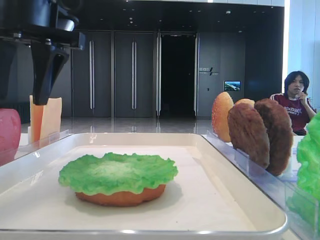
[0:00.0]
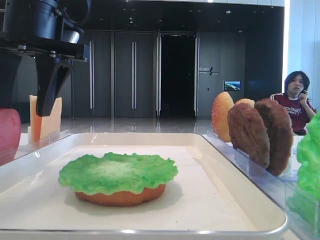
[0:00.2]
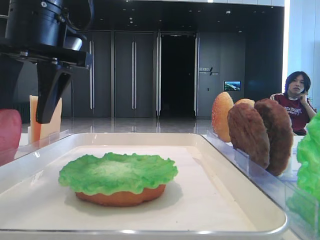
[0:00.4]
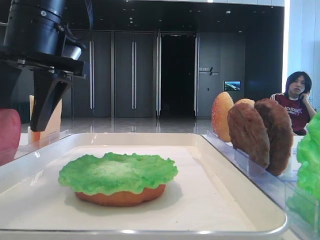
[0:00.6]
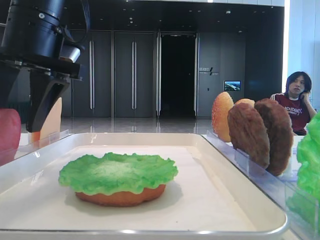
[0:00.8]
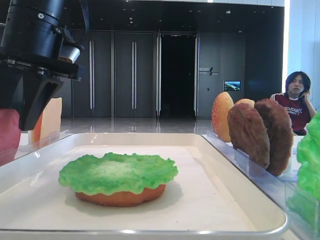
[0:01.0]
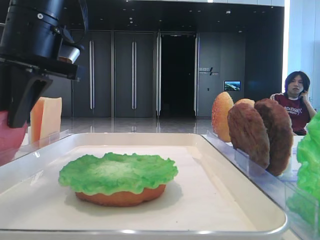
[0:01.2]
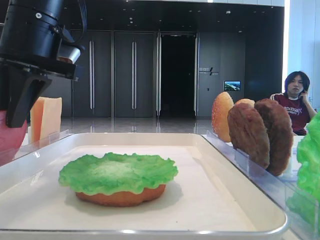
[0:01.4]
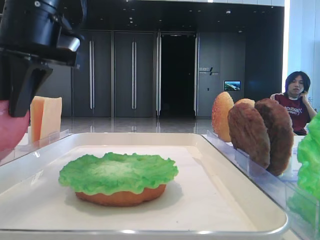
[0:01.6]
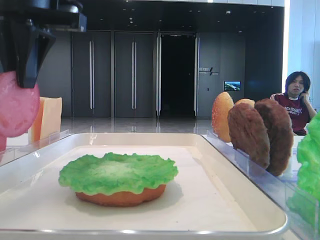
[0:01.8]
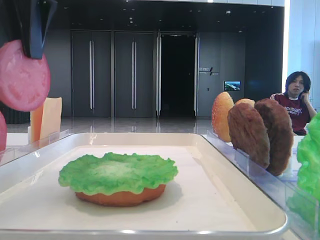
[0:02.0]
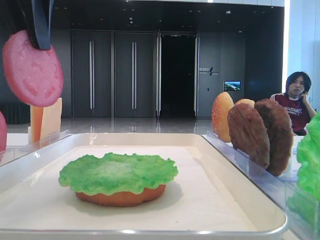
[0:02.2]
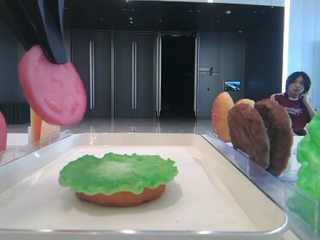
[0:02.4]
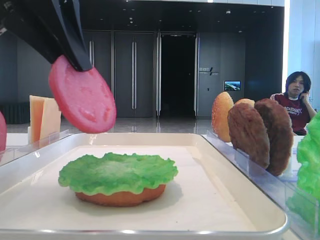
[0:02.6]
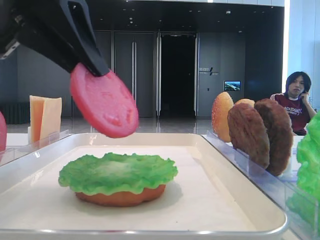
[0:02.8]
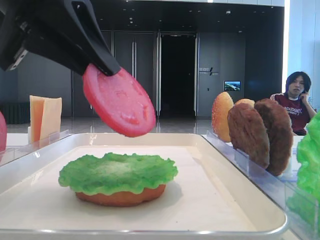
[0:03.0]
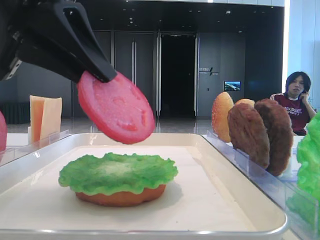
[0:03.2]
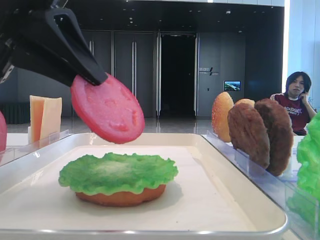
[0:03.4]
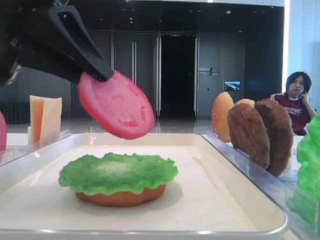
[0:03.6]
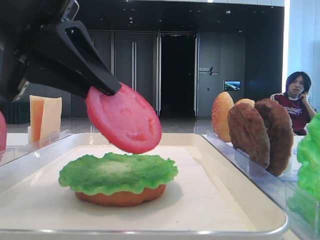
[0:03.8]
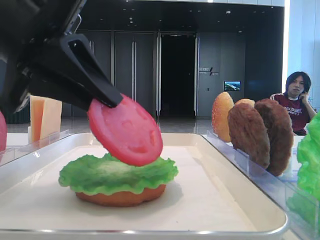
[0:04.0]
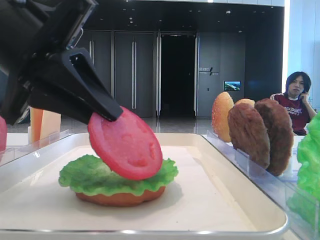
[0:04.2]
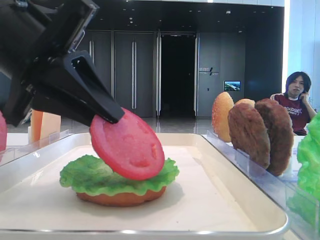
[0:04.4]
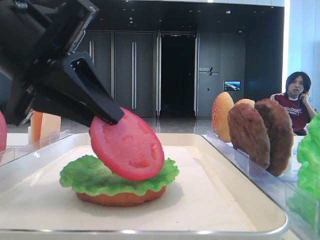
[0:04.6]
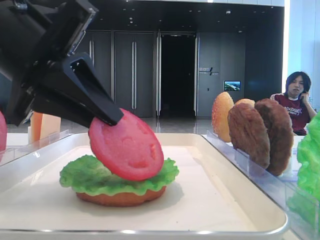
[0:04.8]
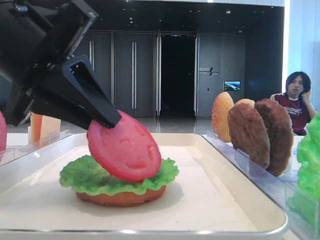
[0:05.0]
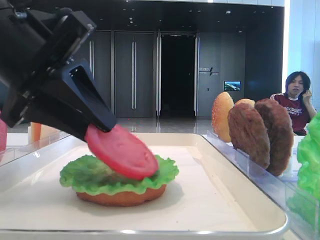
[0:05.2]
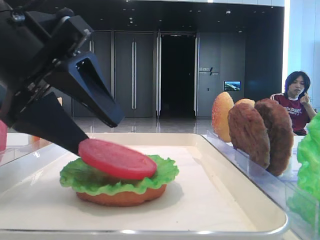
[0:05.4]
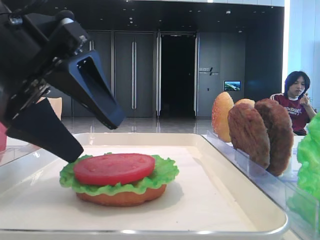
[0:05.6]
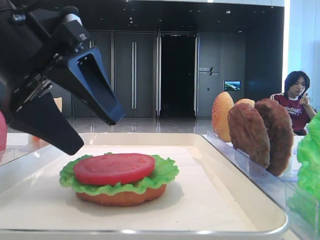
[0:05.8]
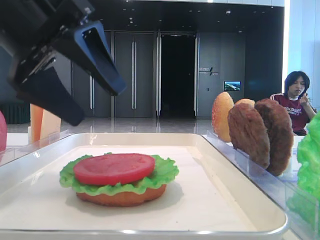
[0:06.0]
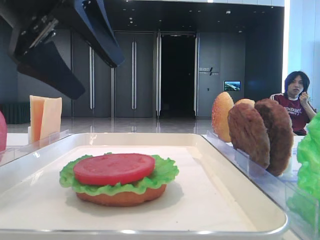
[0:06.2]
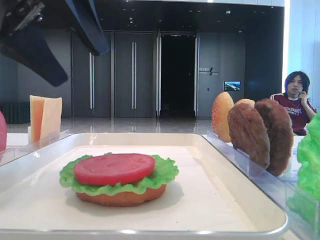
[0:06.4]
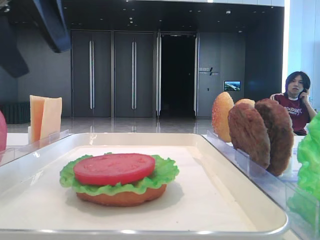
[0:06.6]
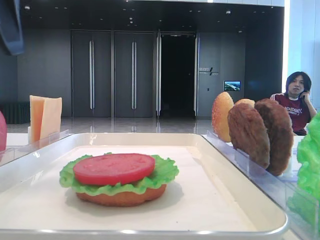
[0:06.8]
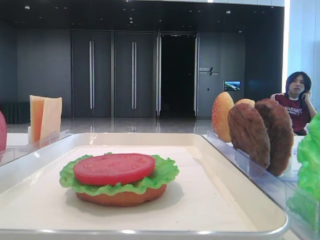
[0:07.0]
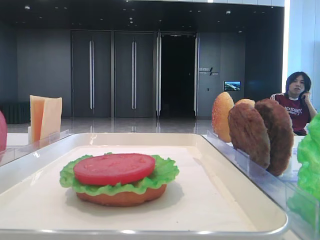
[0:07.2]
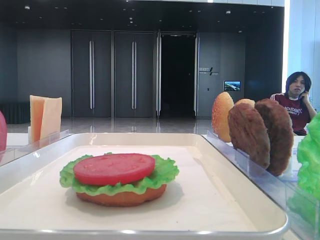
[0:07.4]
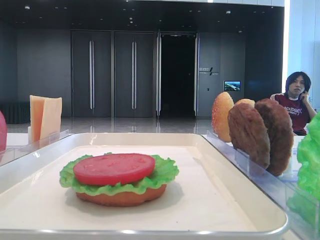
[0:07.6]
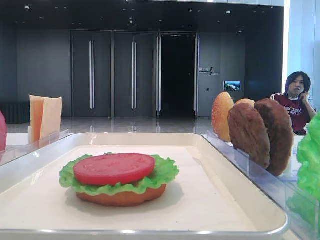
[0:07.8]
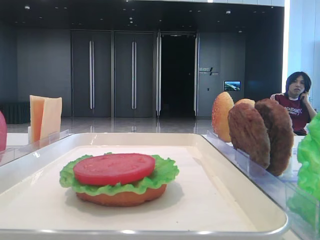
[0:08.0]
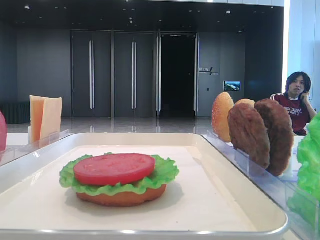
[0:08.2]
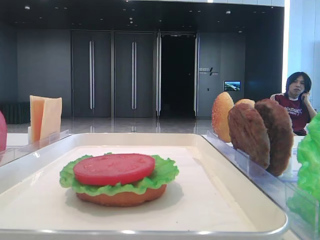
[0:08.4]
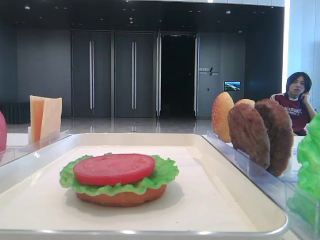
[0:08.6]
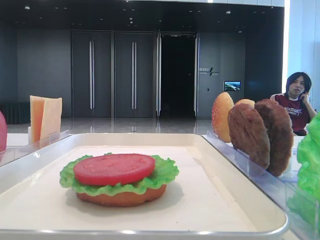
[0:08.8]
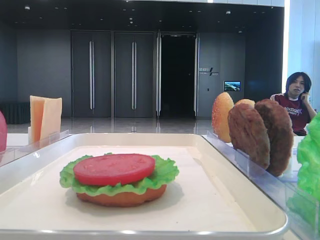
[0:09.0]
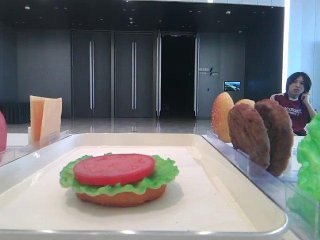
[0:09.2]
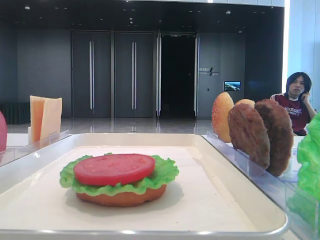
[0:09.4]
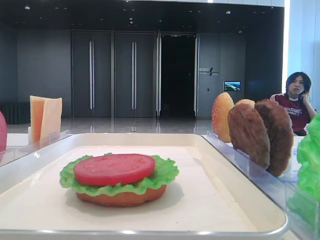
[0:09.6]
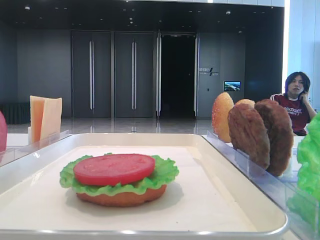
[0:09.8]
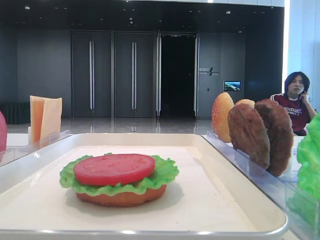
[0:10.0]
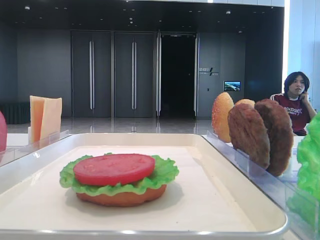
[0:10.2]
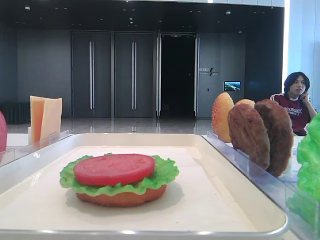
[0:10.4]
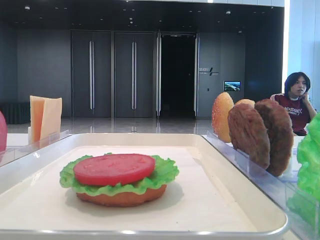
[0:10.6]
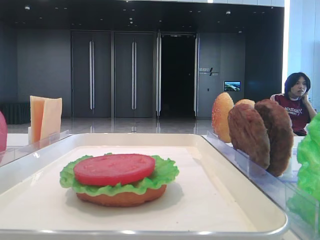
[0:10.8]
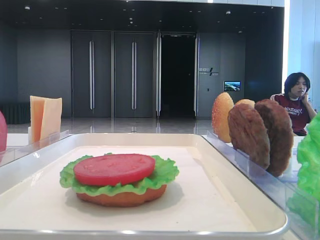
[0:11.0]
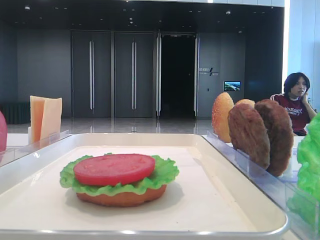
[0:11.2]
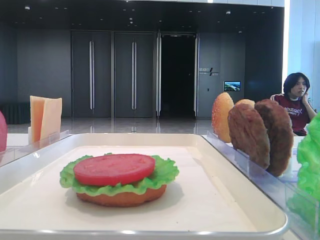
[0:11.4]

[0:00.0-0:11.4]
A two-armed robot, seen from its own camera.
Step, 0:01.6 to 0:05.4: Place the tomato slice on the lettuce leaf with the left hand.
0:00.0 to 0:01.4: The left gripper closes.
0:01.4 to 0:02.8: The left gripper is displaced backward by roughly 10 cm.
0:02.8 to 0:04.2: The left gripper moves downward, about 5 cm.
0:04.2 to 0:05.6: The left gripper opens its fingers.
0:05.6 to 0:07.2: The left gripper shifts approximately 20 cm to the left and upward.
0:10.0 to 0:11.4: Both grippers stay about where they are.

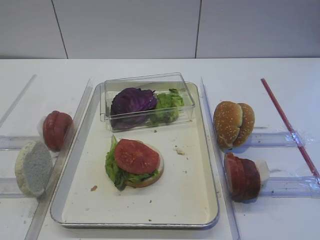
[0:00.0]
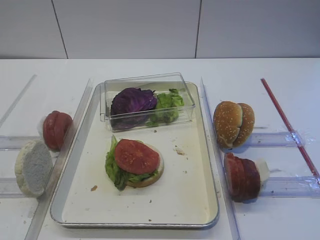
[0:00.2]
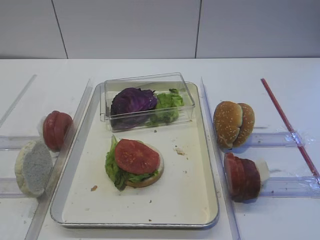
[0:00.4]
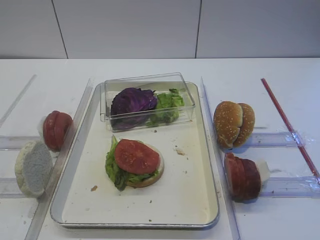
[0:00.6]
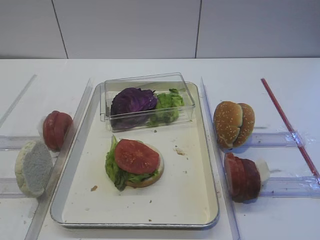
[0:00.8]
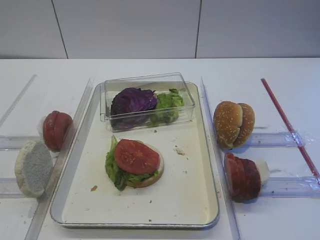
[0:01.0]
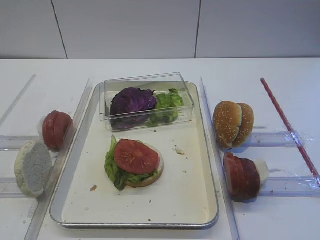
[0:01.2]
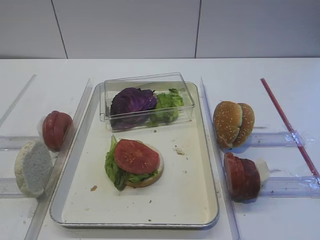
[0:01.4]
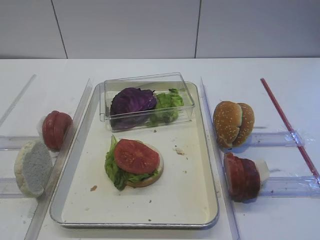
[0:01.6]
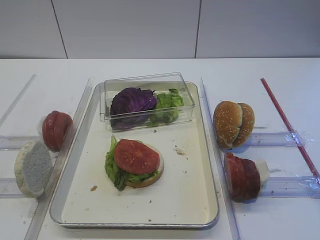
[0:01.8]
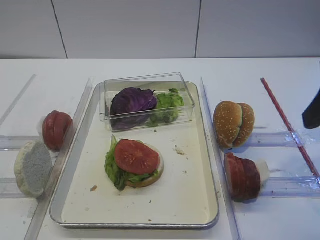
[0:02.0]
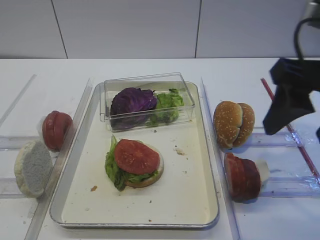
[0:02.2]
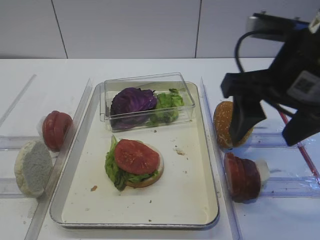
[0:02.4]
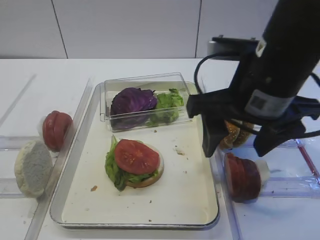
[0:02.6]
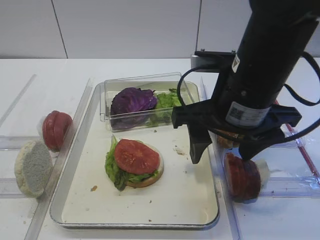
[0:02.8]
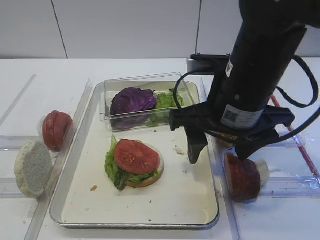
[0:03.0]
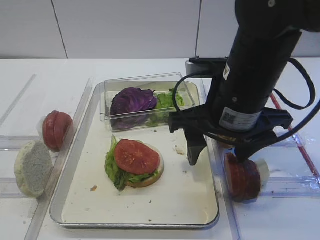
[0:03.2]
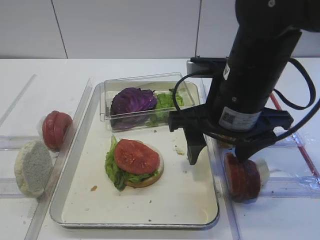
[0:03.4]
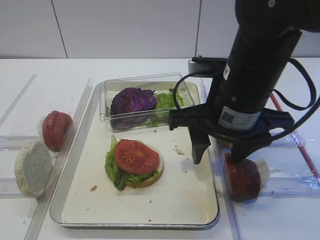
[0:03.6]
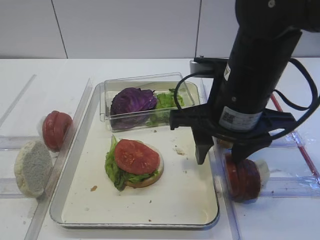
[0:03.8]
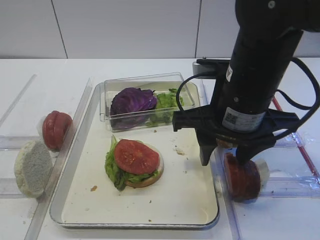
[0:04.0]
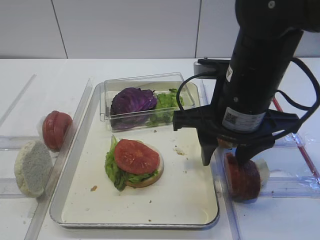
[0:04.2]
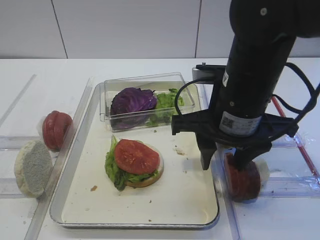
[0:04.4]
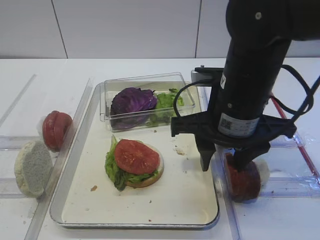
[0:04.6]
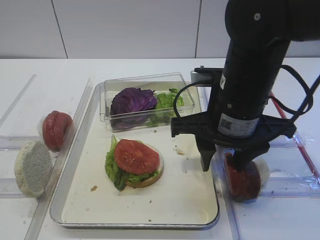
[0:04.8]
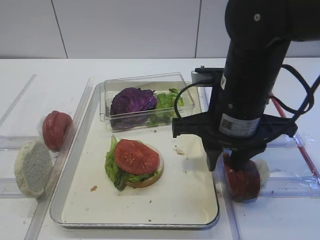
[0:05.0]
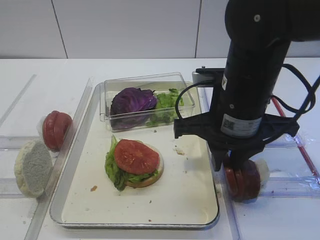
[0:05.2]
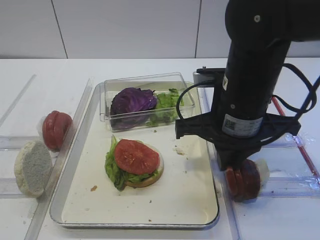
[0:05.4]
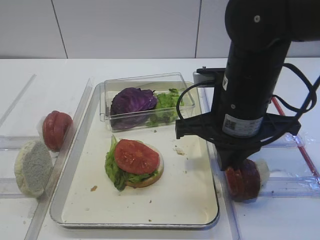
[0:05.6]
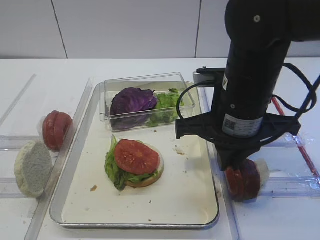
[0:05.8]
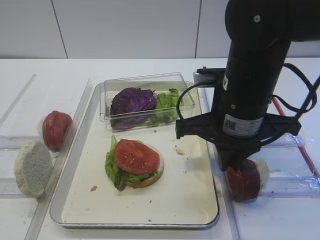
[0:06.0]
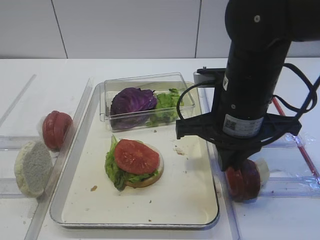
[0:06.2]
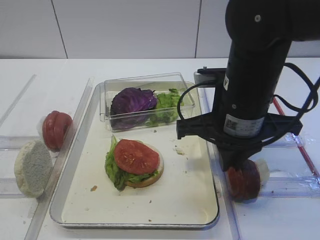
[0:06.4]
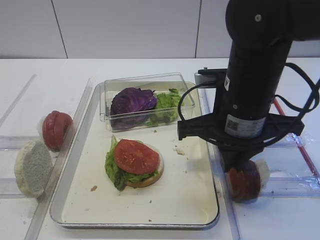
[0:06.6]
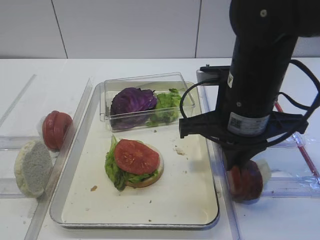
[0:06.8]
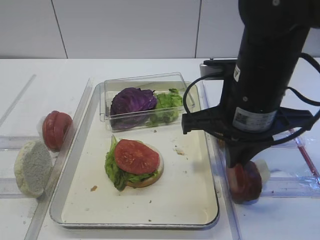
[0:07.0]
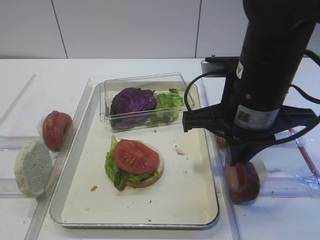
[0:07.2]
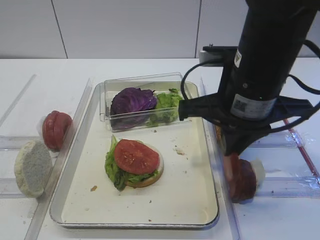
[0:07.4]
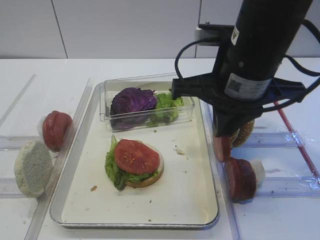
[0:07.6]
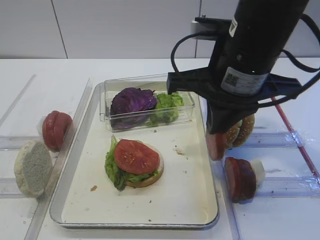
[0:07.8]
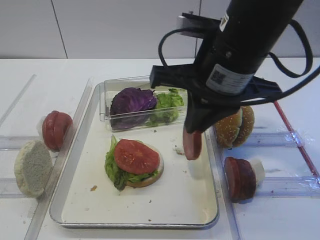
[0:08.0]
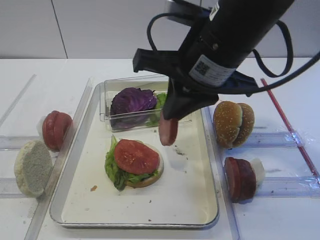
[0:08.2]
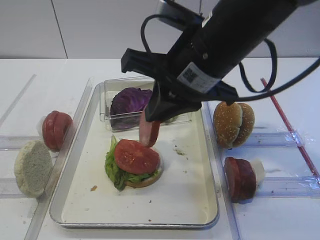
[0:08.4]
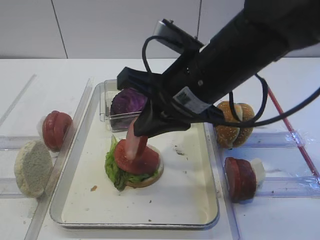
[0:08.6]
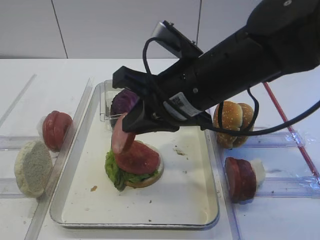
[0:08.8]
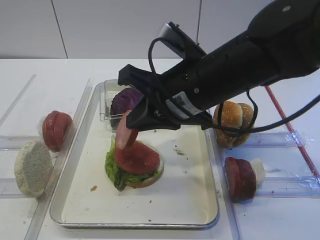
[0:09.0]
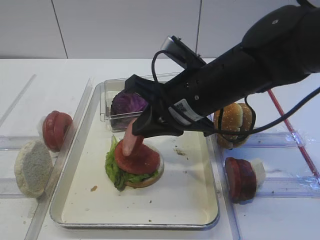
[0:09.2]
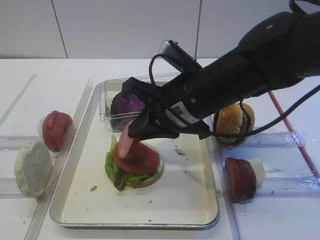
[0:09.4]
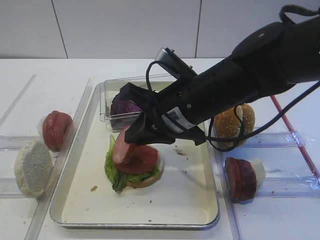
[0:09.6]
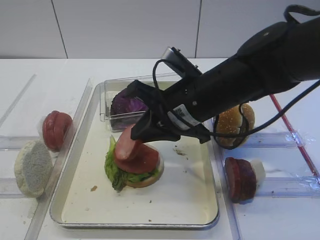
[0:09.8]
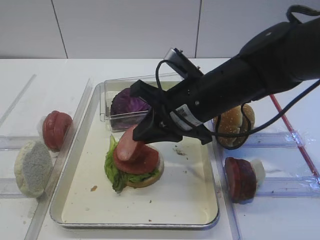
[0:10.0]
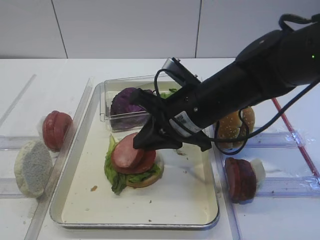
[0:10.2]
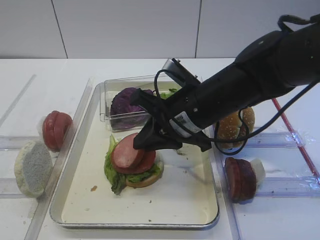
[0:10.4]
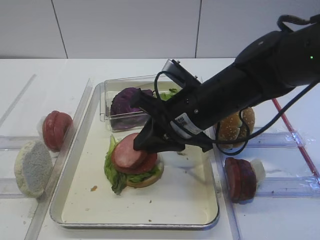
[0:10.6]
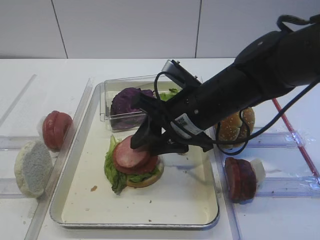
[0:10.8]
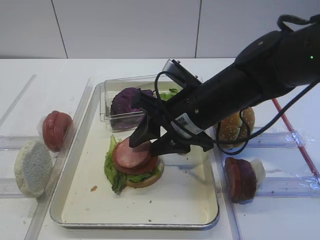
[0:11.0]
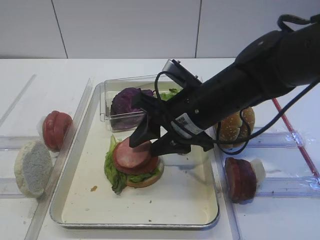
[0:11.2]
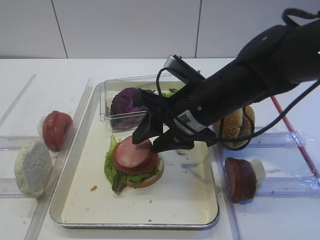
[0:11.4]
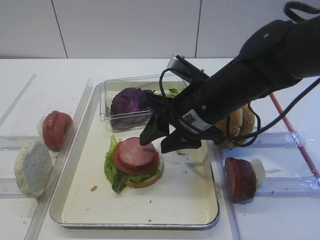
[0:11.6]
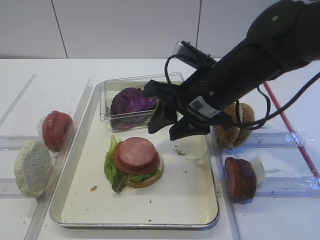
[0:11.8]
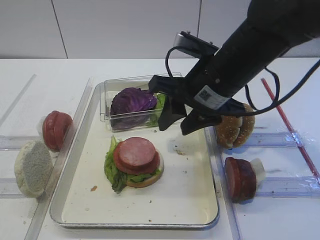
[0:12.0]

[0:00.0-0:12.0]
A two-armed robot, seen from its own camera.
Step, 0:00.0 to 0:07.2: Pick up the cutlet with the right gripper.
Step, 0:07.4 to 0:11.4: Place the cutlet on the tomato slice with the right gripper.
0:01.6 to 0:03.0: The right gripper goes about 25 cm forward, to the left and downward.
0:03.0 to 0:04.4: The grippers move only a little.
0:04.4 to 0:06.0: The right gripper closes.
0:06.0 to 0:07.6: The right gripper shifts roughly 5 cm upward.
0:07.6 to 0:09.0: The right gripper ends up some 5 cm from where it was.
0:09.0 to 0:10.4: The right gripper is displaced downward by roughly 5 cm.
0:10.4 to 0:12.0: The right gripper moves some 5 cm, and opens.
